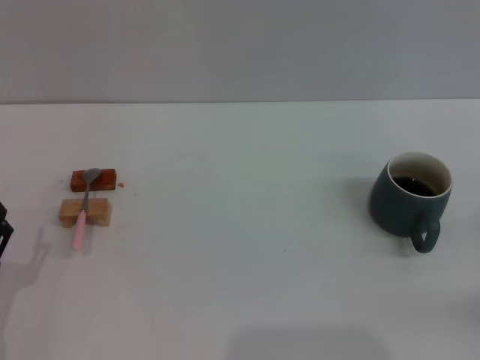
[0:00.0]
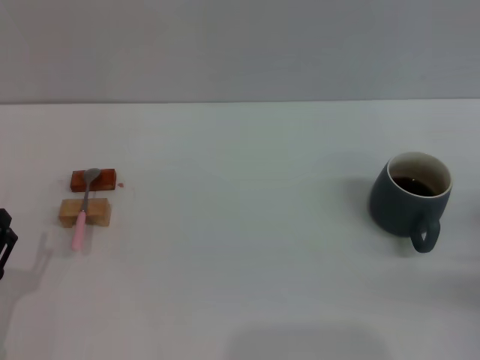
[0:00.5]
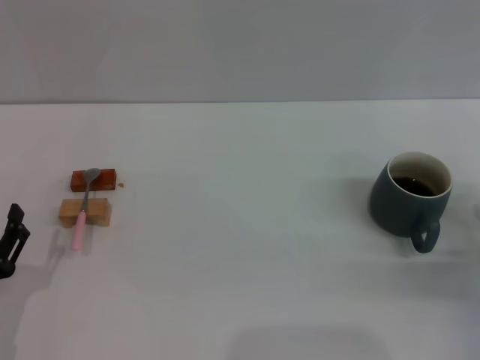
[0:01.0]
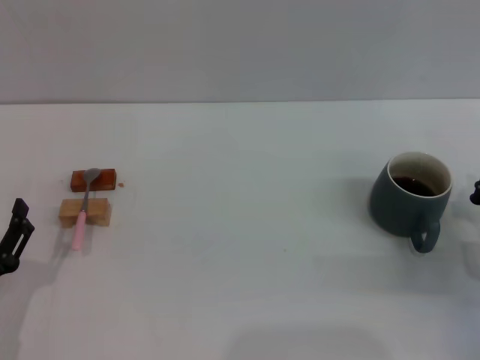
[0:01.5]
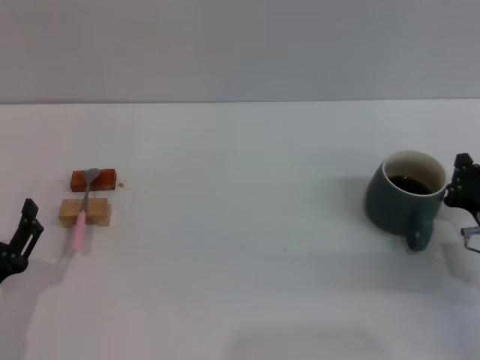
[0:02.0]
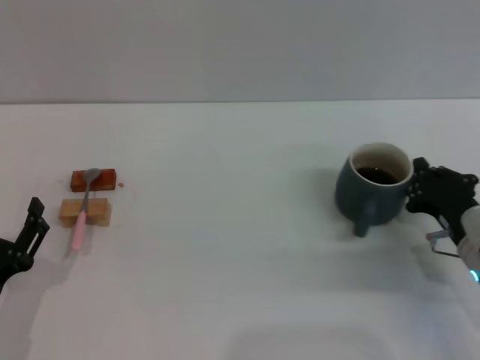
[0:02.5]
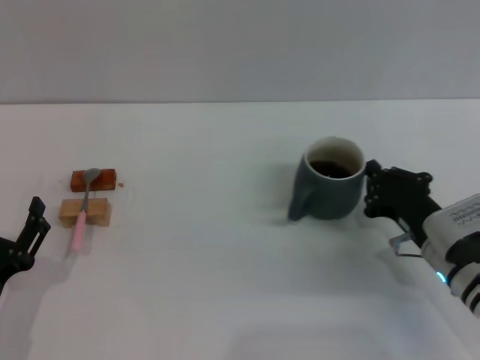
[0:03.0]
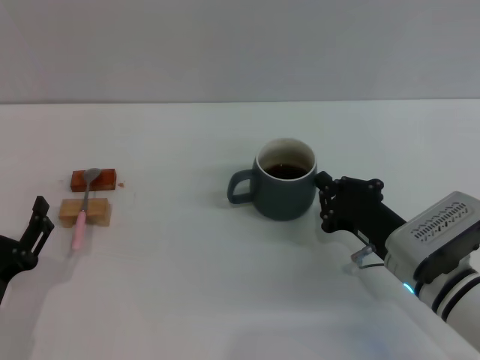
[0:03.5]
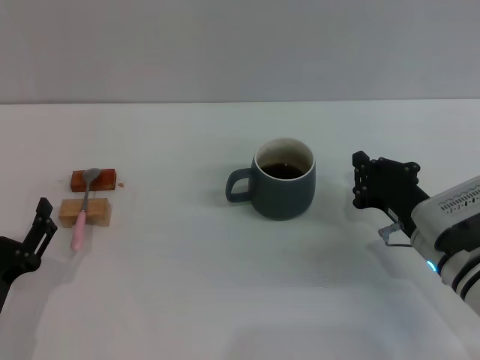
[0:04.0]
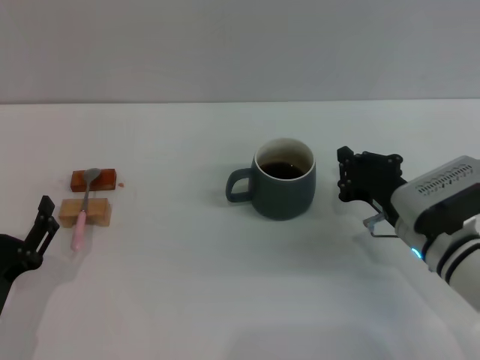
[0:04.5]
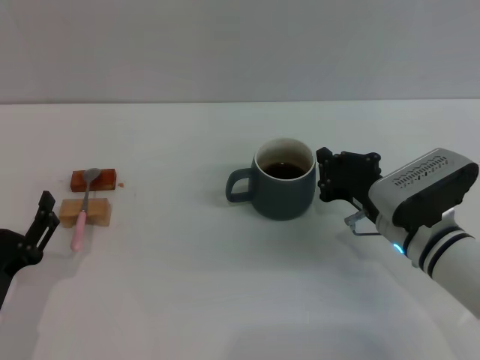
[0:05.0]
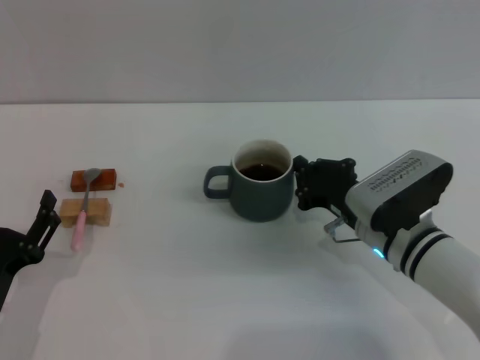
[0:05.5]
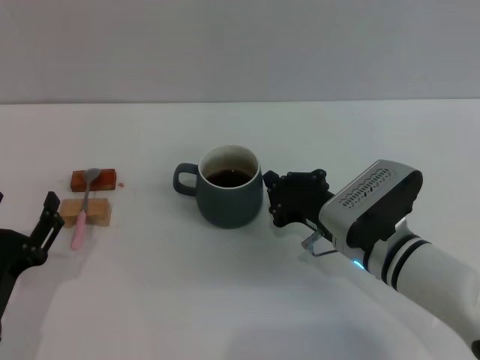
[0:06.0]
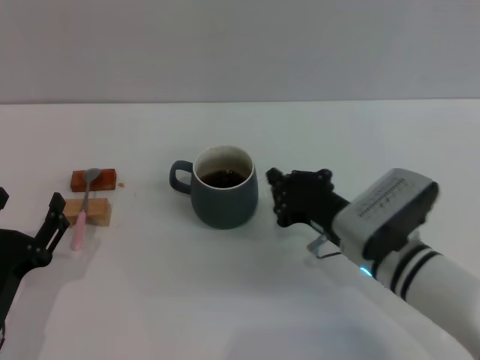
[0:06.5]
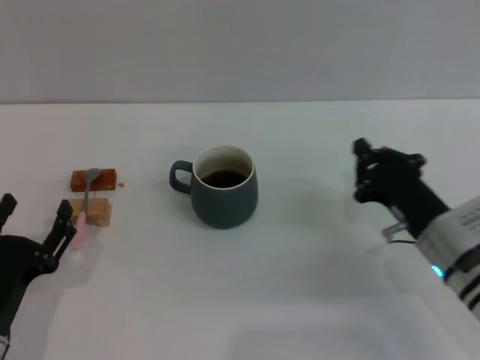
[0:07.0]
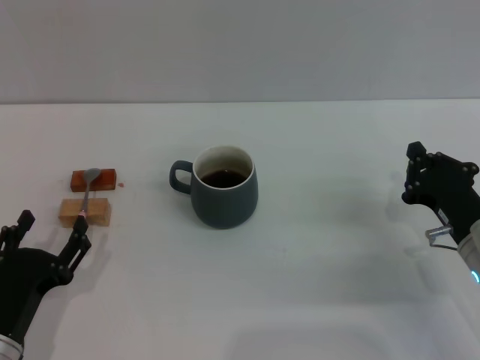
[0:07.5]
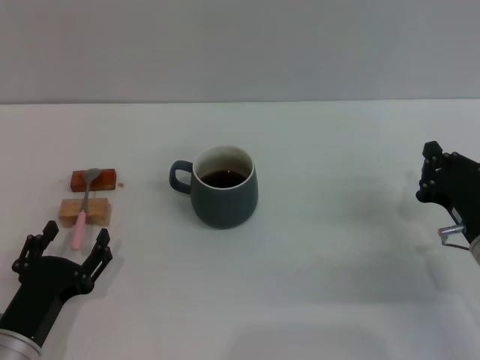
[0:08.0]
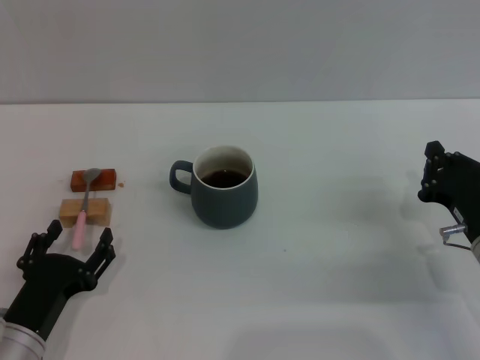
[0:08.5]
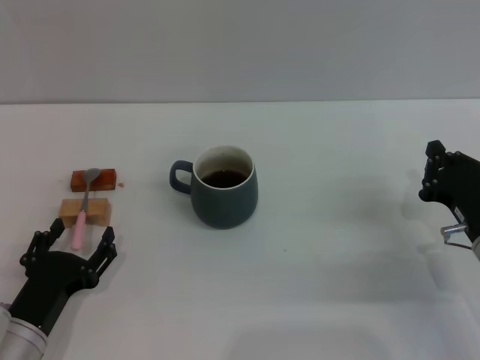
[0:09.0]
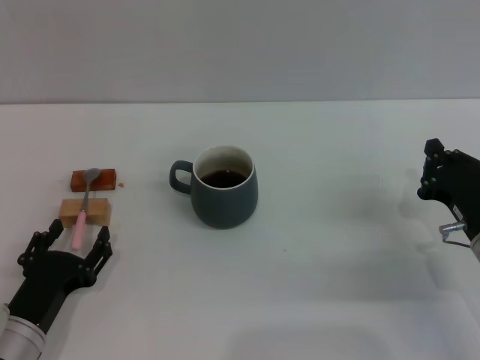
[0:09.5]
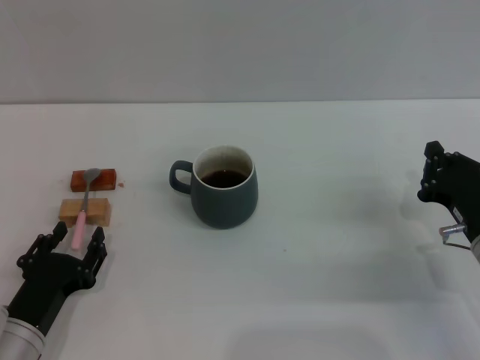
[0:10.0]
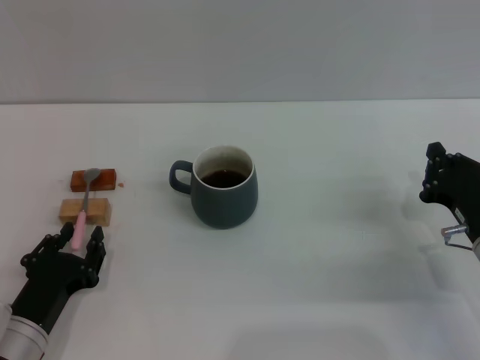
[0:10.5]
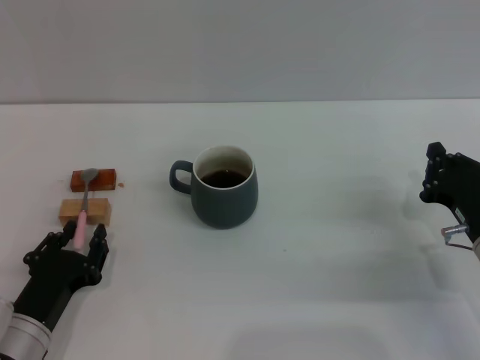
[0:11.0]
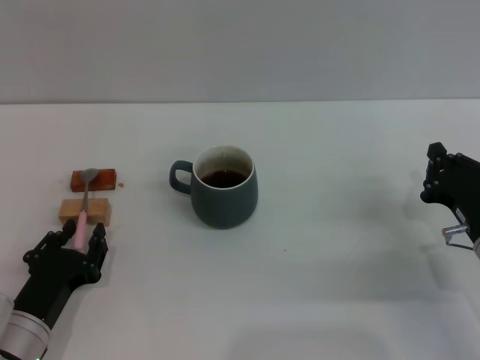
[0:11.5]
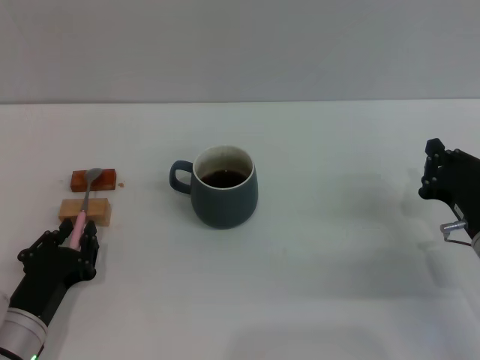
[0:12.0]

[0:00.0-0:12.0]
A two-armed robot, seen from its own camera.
Task of the whole recording: Move the grey cup to the center, lift the pink spoon, stir it three times in the cup, and put the spoon into the cup.
Step, 0:00.0 to 0:06.5: Move the cup with coffee to the center of view with the right gripper.
0:00.0 to 0:02.0: The right gripper goes roughly 10 cm to the left.
0:02.0 to 0:04.0: The right gripper is displaced to the left by roughly 5 cm.
0:04.0 to 0:06.0: The right gripper moves to the left, some 10 cm.
0:06.0 to 0:08.0: The right gripper heads to the right, covering some 10 cm.
0:08.0 to 0:10.0: There are only small adjustments of the grippers.
0:10.0 to 0:12.0: Neither gripper changes place.

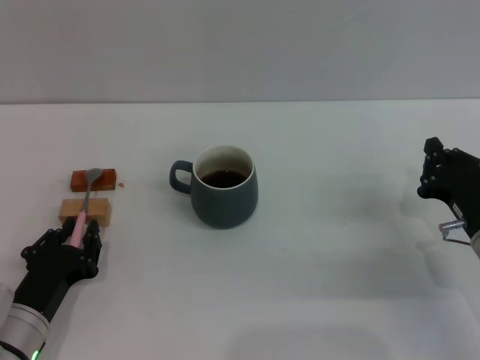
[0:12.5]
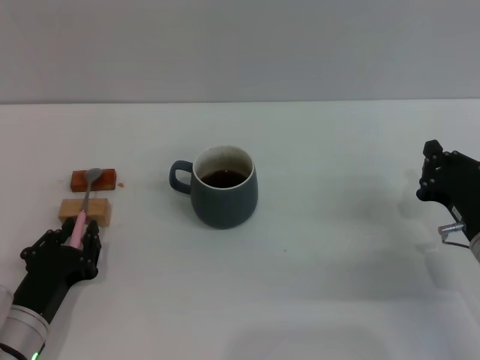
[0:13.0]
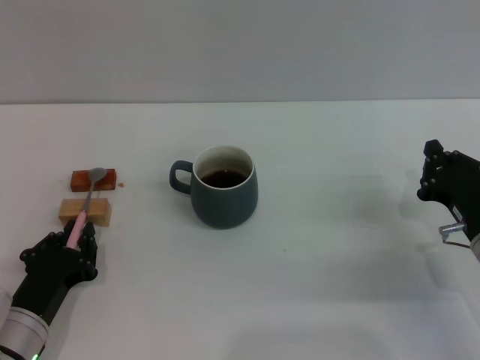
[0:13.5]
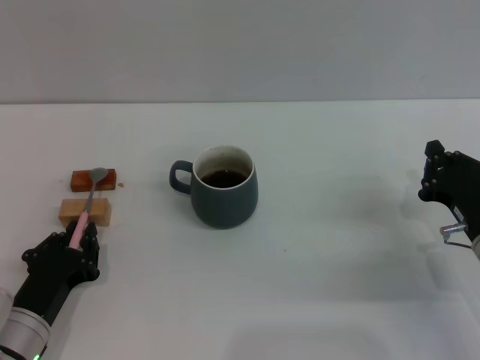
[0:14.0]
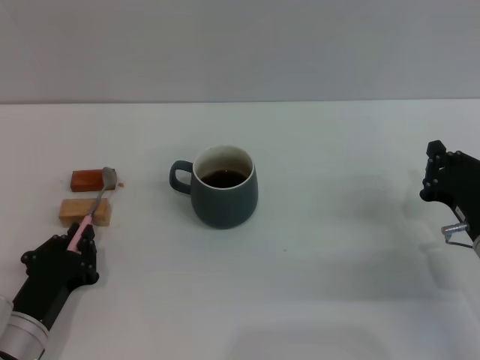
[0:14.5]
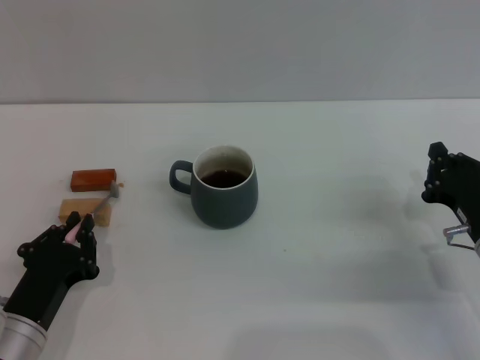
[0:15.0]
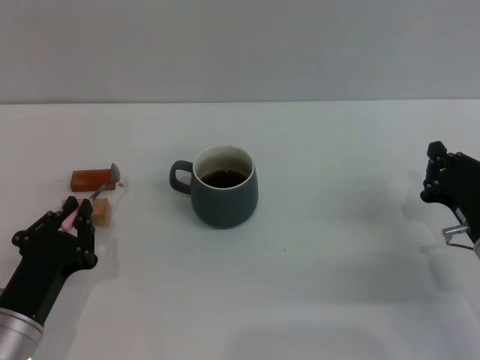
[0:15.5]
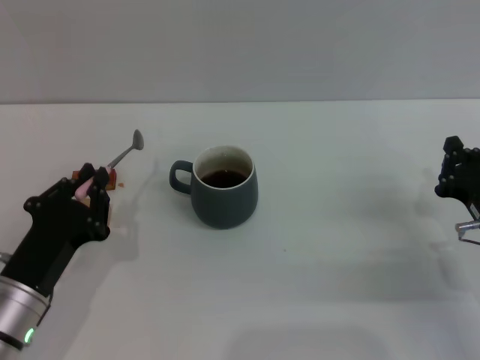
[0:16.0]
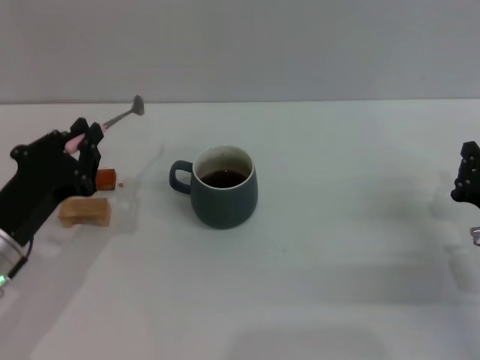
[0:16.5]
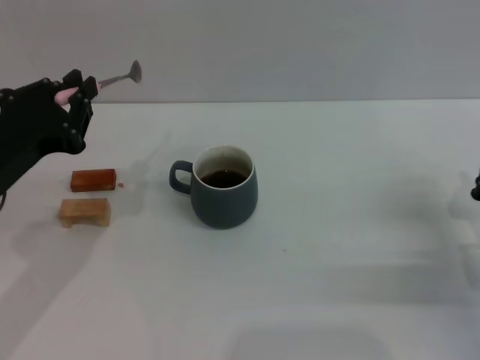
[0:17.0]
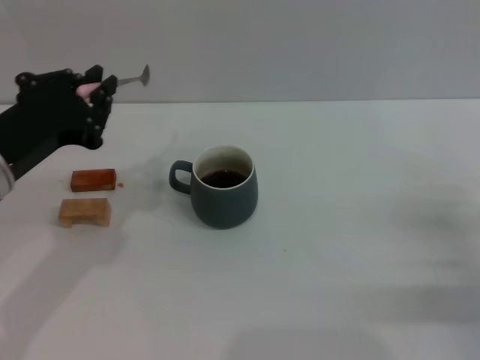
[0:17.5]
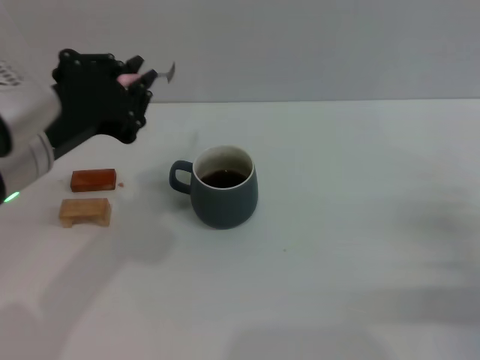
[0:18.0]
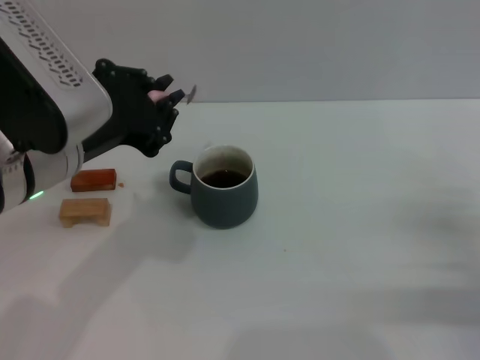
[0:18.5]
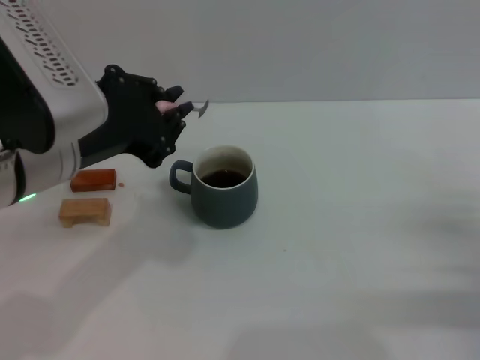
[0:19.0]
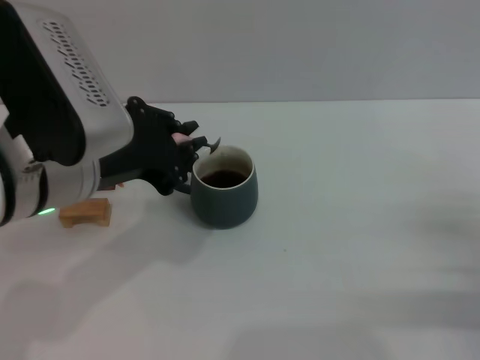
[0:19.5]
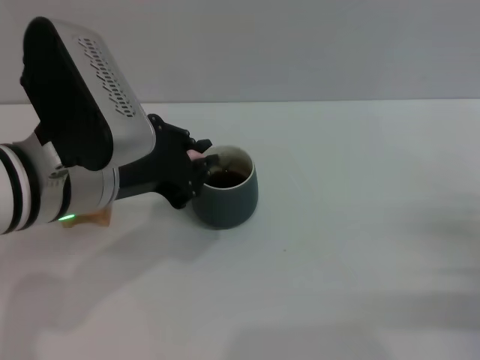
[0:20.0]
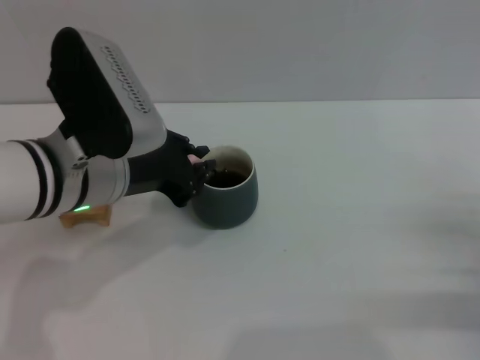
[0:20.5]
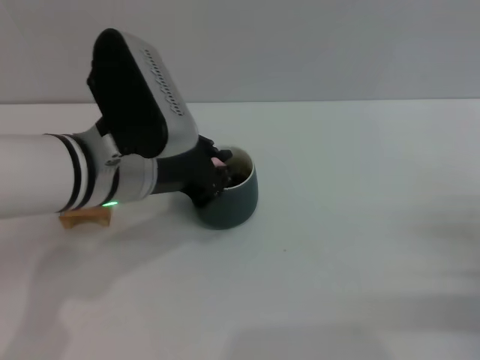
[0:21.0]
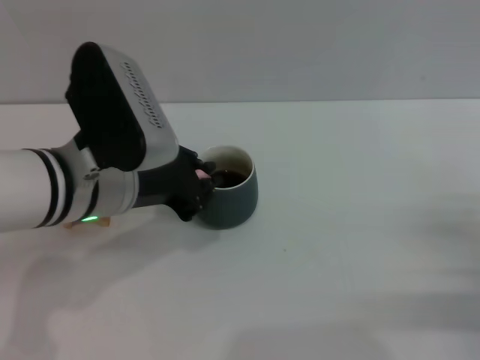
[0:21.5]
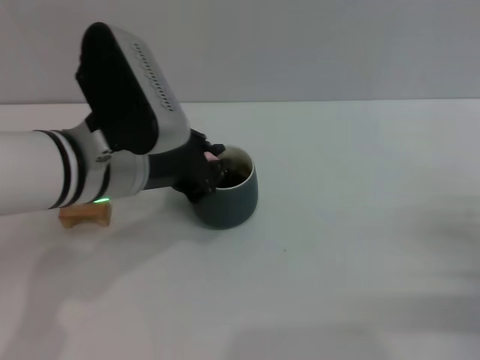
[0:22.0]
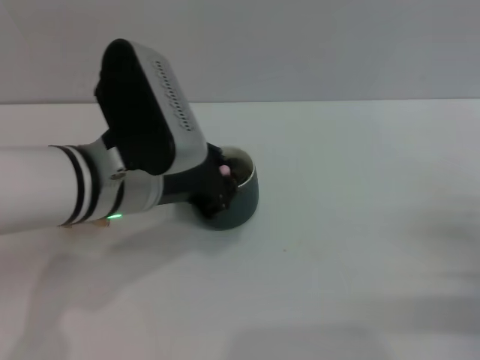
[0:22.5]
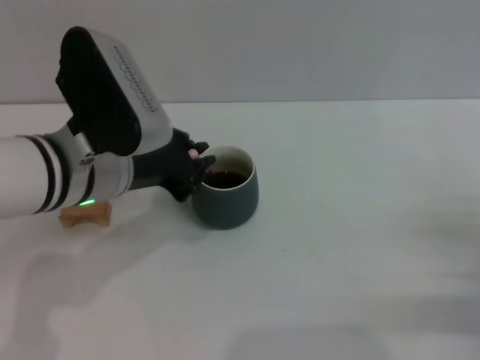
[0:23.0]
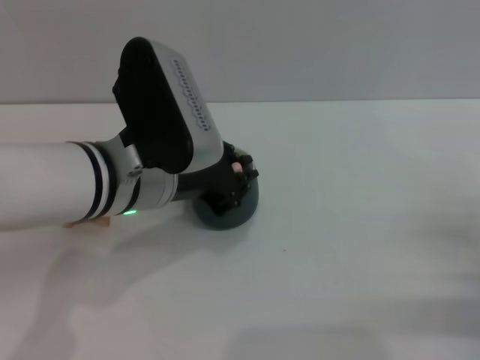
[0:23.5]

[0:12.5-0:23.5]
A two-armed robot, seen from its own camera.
Task of the whole recording: Move the grey cup to the center, lift the pink spoon, stir it three times in the cup, and put the spoon into the cup.
Step, 0:12.5 to 0:17.0: Pick up the spoon with the left gripper.
0:12.5 to 0:14.5: Both grippers stay about where they are.
0:14.5 to 0:16.0: The grippers make only small movements.
0:16.0 to 0:18.0: The right gripper shifts by approximately 5 cm. The left gripper is displaced upward by roughly 20 cm.
0:20.0 to 0:23.5: There are only small adjustments of the grippers.

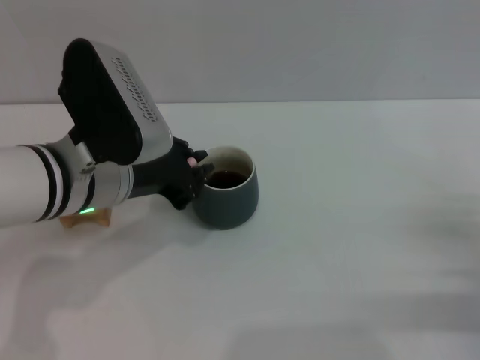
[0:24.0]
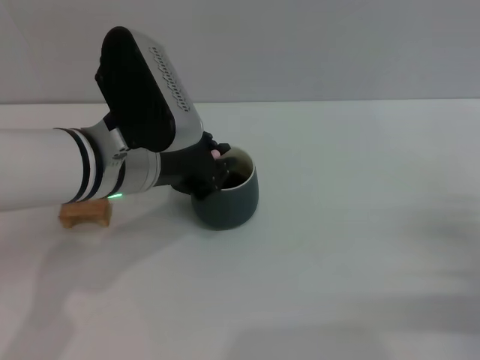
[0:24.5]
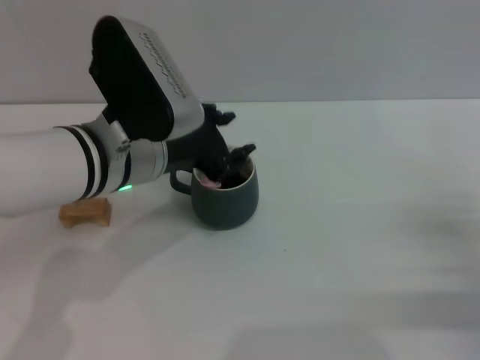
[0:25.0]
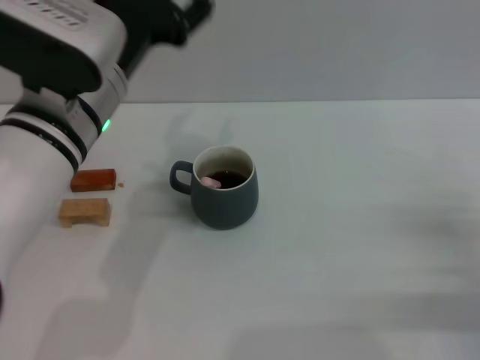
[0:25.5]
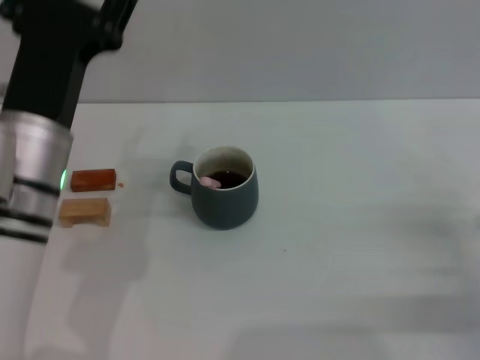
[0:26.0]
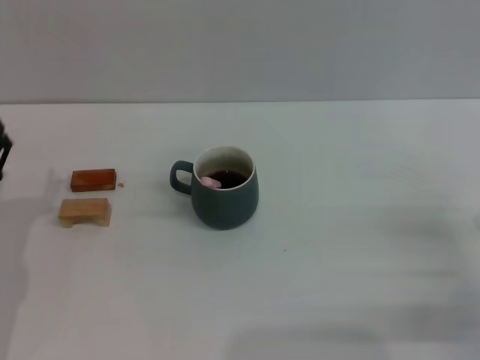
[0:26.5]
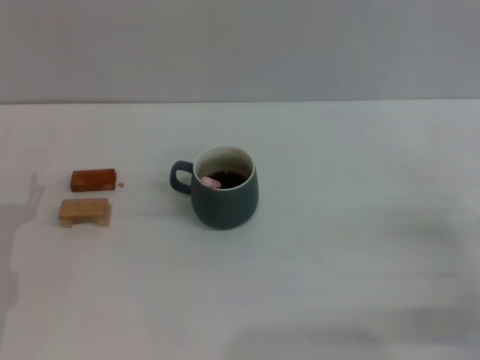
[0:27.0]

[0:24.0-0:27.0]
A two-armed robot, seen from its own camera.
Task of the whole recording: Move the grey cup to the center, lift the pink spoon, stir it three times in the cup, and put the spoon into the cup.
0:24.0 to 0:25.5: The left gripper opens.
0:25.5 to 0:27.0: The left gripper shifts some 25 cm downward and to the left.
